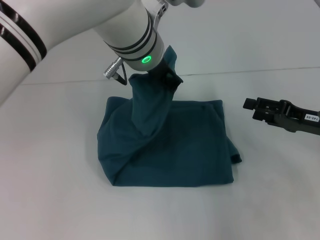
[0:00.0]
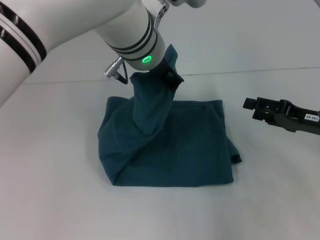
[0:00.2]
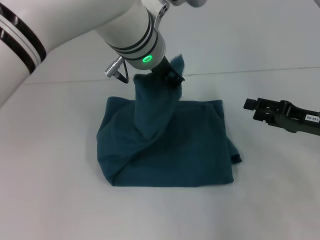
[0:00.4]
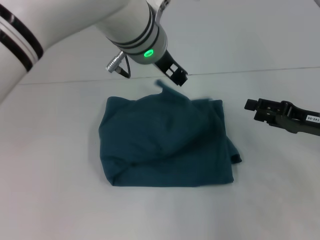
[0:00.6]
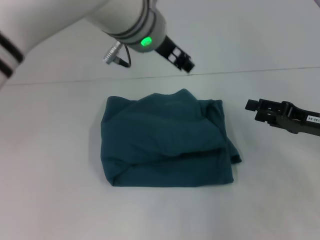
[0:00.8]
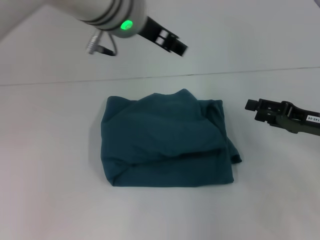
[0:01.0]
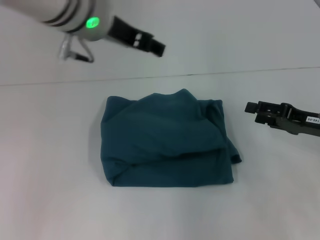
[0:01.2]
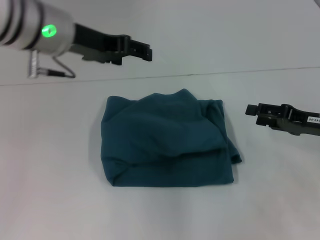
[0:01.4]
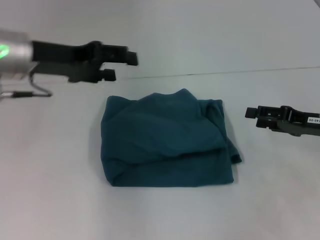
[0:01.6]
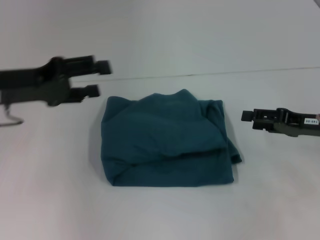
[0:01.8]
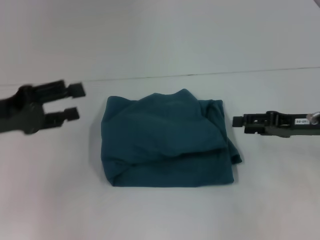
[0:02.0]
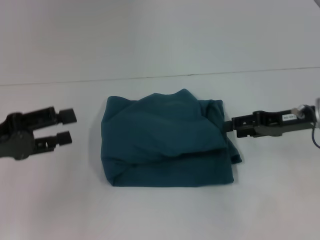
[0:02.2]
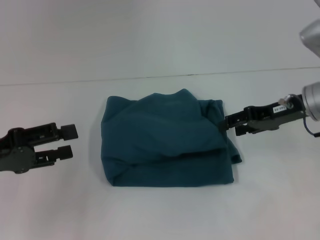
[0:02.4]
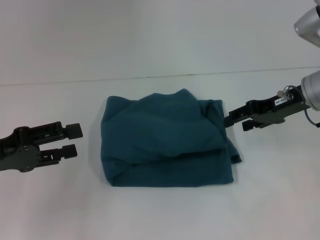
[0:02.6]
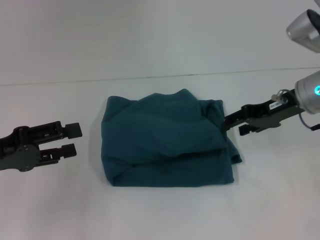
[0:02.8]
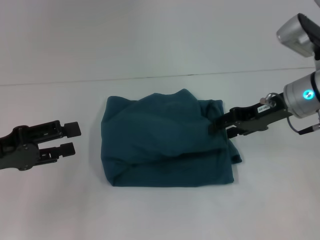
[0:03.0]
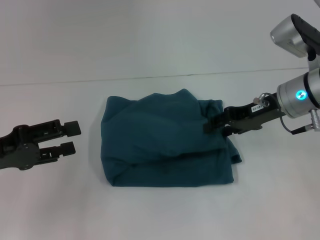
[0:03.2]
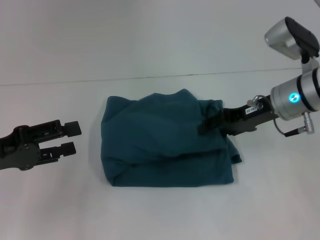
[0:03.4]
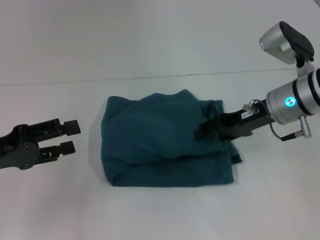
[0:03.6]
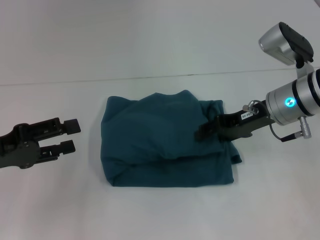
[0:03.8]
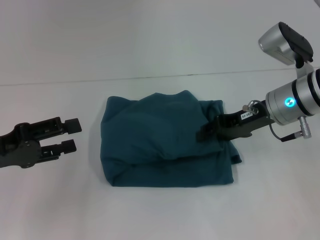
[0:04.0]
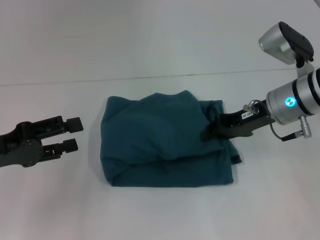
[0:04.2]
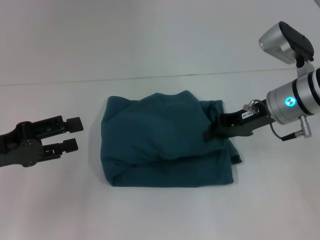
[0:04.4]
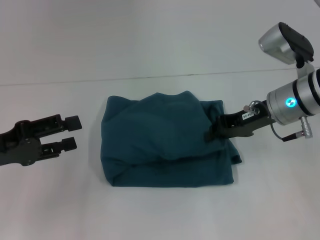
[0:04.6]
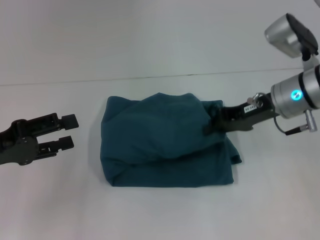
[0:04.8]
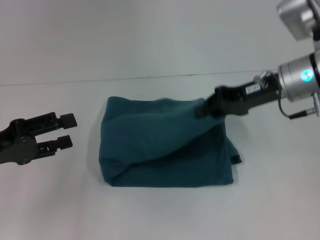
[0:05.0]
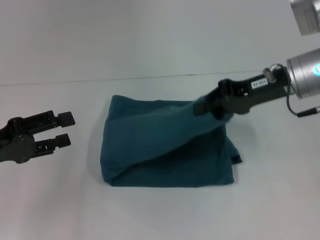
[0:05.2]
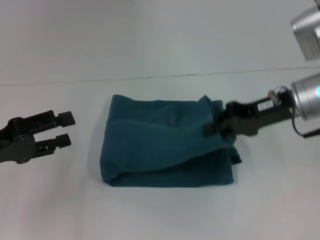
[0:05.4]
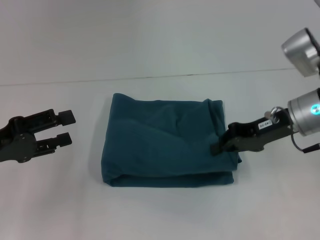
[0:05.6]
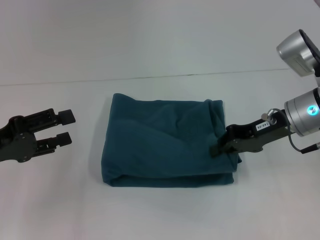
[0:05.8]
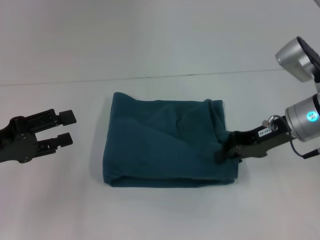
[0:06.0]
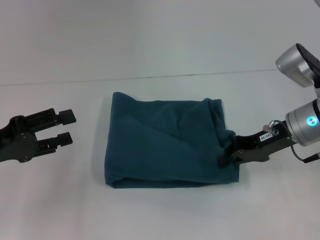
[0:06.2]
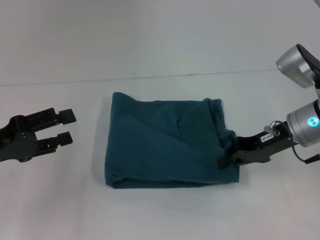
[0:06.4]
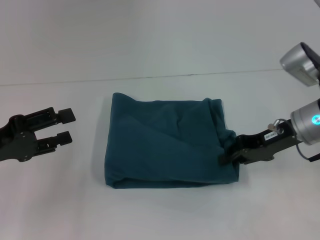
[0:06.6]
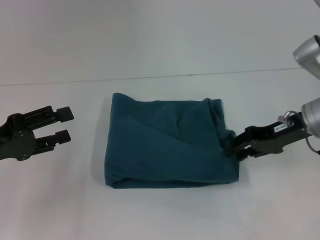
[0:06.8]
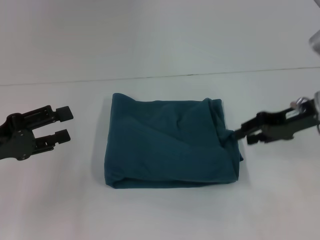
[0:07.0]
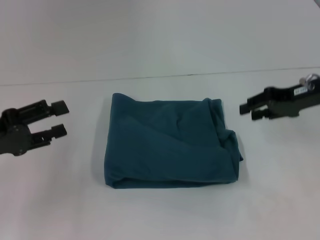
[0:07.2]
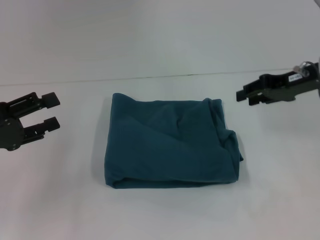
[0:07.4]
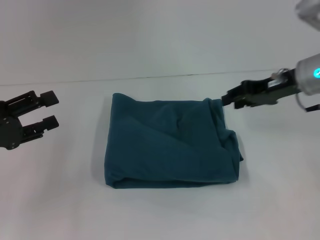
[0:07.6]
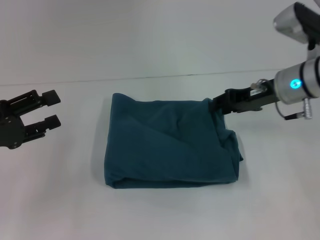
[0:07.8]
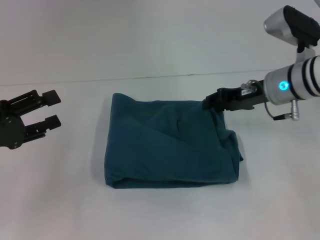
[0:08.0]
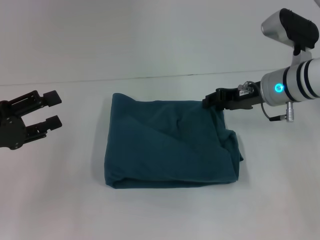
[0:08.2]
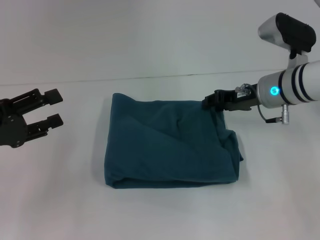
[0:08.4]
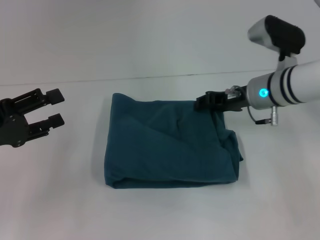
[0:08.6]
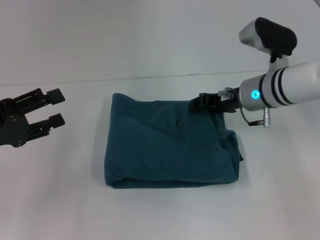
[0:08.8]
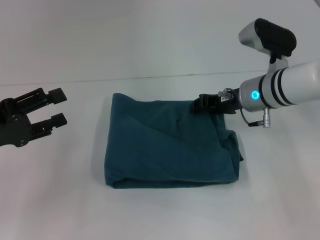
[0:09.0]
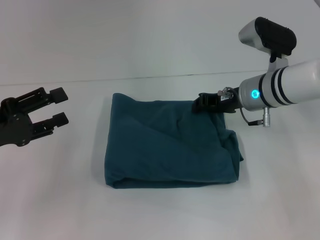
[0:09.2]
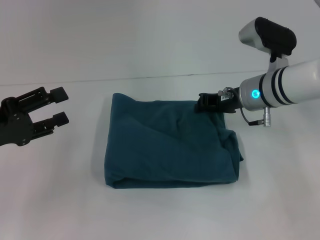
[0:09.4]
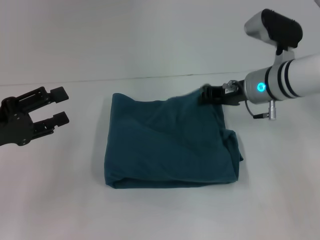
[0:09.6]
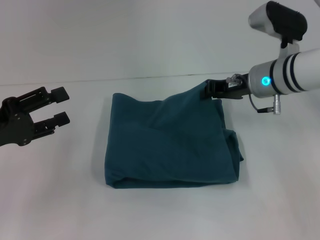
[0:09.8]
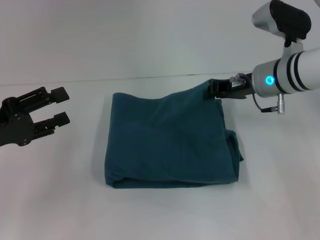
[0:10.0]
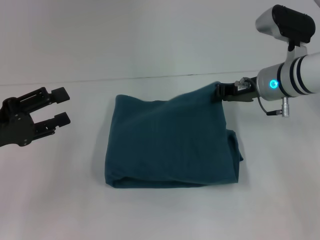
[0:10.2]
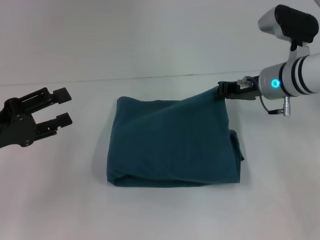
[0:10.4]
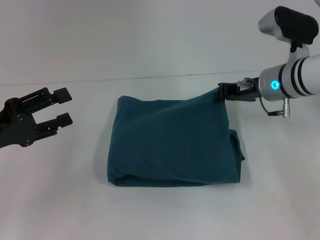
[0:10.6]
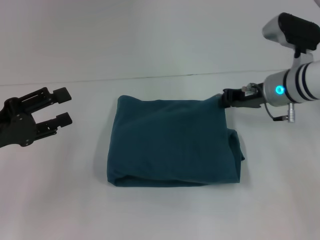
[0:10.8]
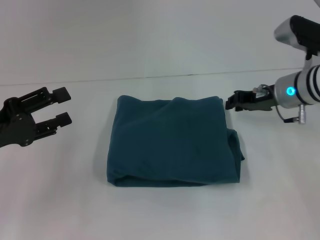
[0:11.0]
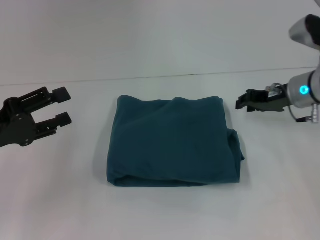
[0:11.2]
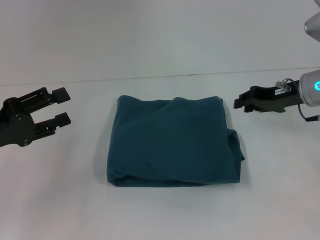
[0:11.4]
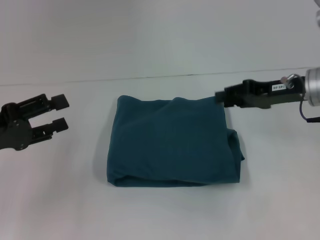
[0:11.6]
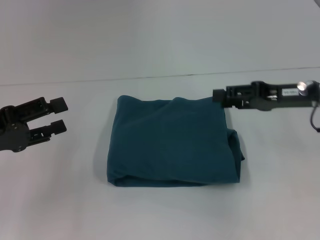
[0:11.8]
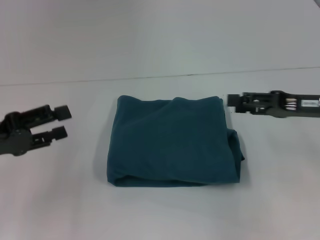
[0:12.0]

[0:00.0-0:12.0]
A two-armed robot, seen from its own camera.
0:00.0 to 0:01.6: The left gripper goes some 20 cm to the left, and opens.
0:01.6 to 0:03.0: The left gripper is displaced backward, to the left and downward by about 15 cm. Meanwhile the right gripper shifts approximately 10 cm to the left and forward.
0:03.0 to 0:04.4: The right gripper closes.
0:04.4 to 0:06.0: The grippers stay close to where they were, moving slightly.
0:06.0 to 0:07.6: The right gripper shifts by approximately 5 cm, and opens up.
0:07.6 to 0:09.0: The right gripper heads to the left and downward, covering about 10 cm.
0:09.0 to 0:10.4: The right gripper closes its fingers.
0:10.4 to 0:12.0: The right gripper heads backward and to the right, covering about 15 cm, and opens up.

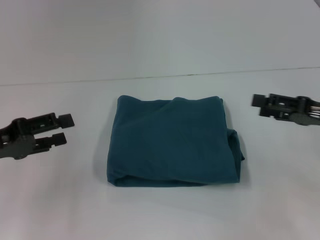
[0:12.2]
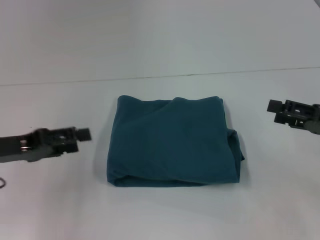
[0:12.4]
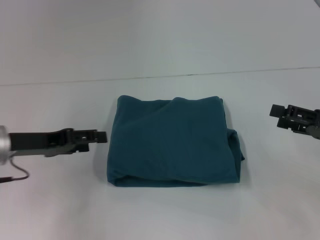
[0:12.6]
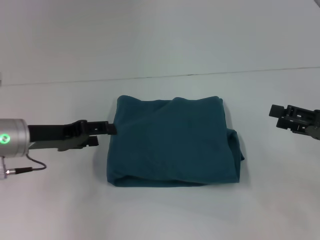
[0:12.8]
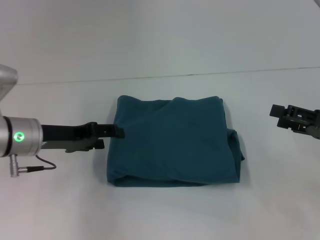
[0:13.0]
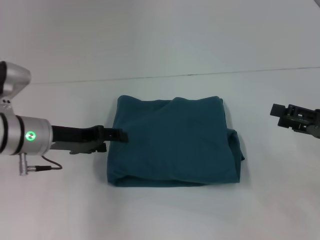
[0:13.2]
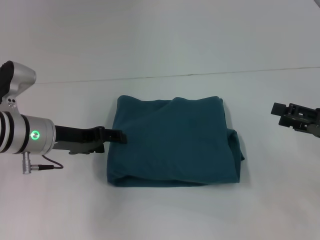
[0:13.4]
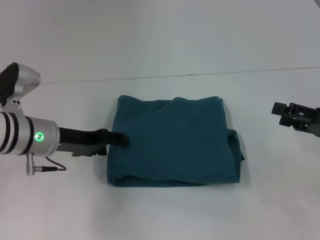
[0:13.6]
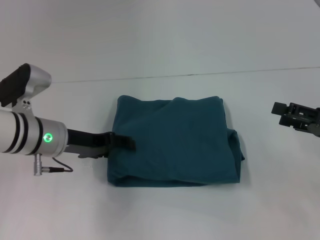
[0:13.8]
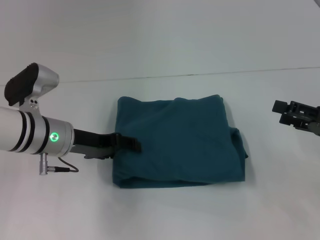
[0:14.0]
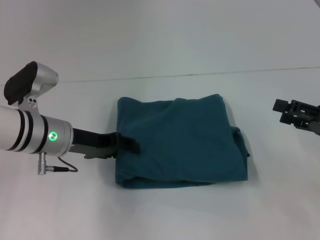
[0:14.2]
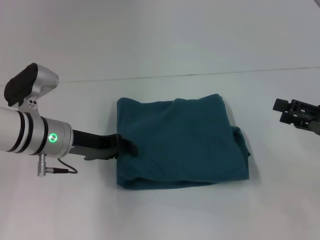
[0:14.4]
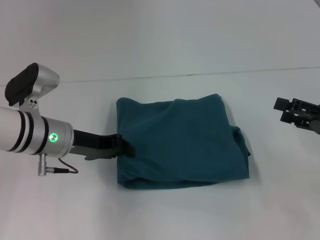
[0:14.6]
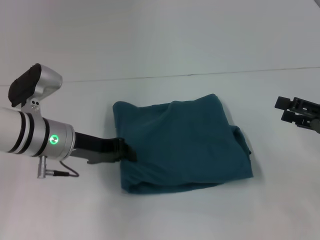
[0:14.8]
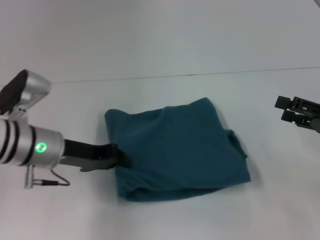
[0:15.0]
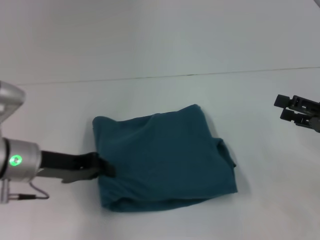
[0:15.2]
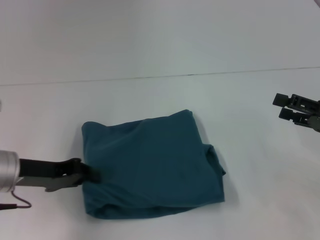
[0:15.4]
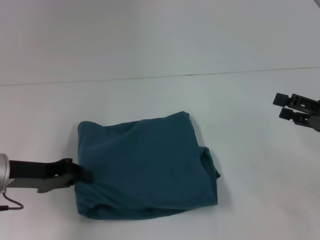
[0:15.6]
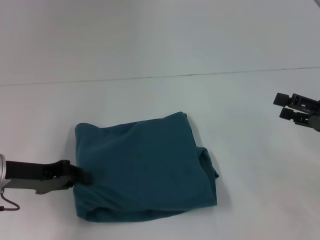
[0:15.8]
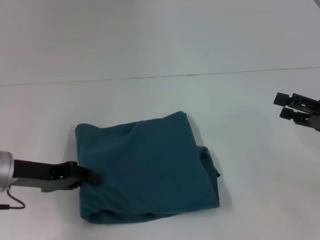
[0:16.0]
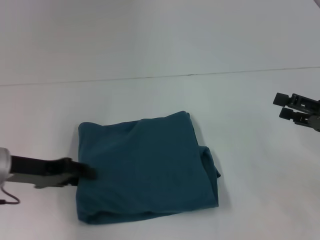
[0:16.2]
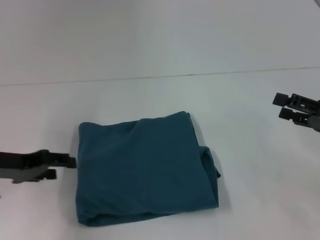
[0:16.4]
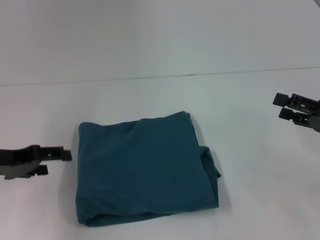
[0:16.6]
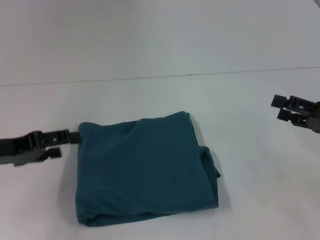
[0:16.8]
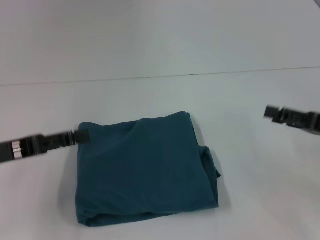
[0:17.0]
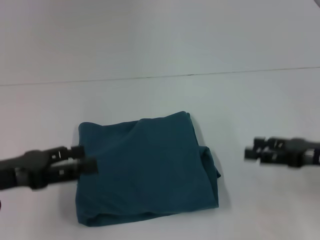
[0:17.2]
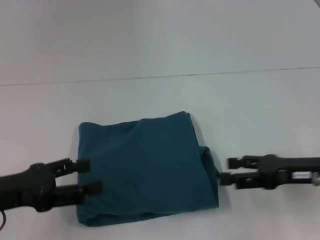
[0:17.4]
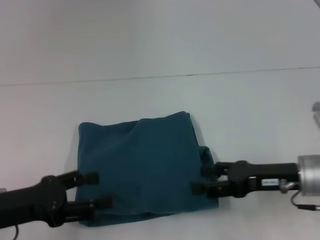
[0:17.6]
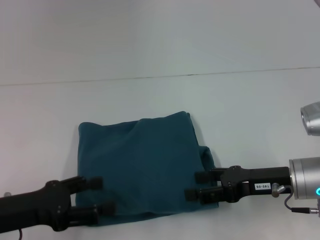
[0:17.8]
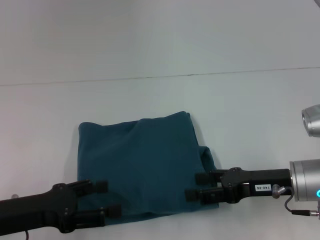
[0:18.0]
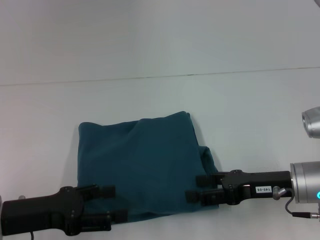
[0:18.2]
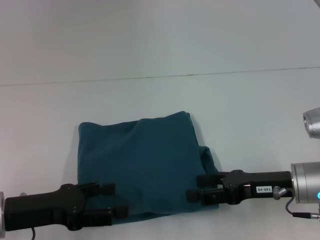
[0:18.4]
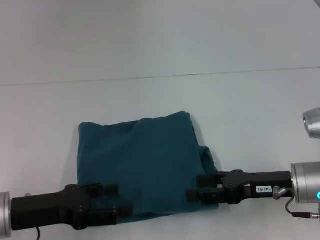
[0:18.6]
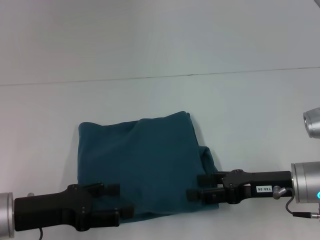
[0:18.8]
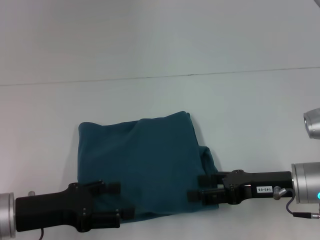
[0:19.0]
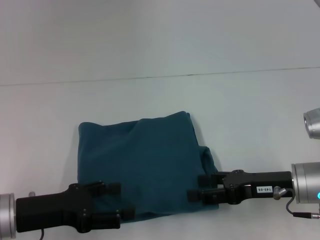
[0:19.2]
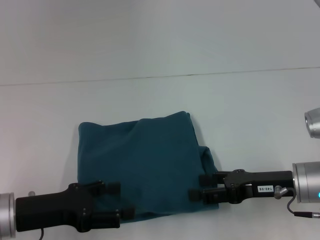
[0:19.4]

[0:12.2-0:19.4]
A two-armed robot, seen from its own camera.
0:12.2 to 0:13.6: The left gripper goes roughly 15 cm to the right and forward.
0:13.6 to 0:15.0: The left gripper closes its fingers.
0:15.0 to 0:16.6: The left gripper heads to the left, covering some 10 cm, and opens up.
0:16.6 to 0:18.0: The left gripper goes some 5 cm backward, while the right gripper shifts about 10 cm to the left.
0:18.0 to 0:19.4: There are only small adjustments of the grippers.

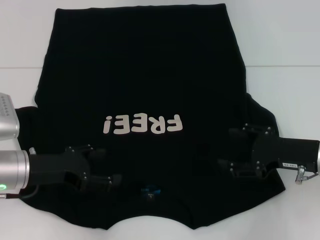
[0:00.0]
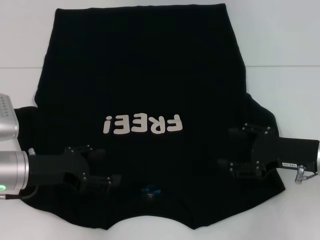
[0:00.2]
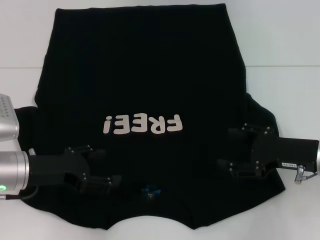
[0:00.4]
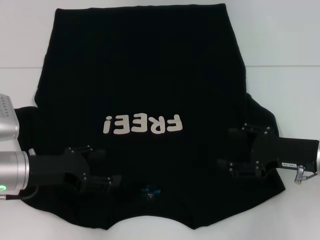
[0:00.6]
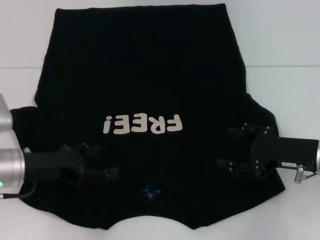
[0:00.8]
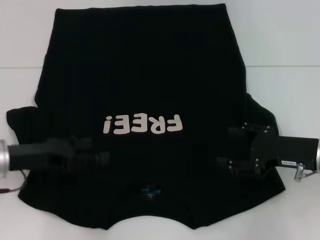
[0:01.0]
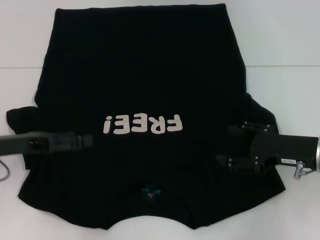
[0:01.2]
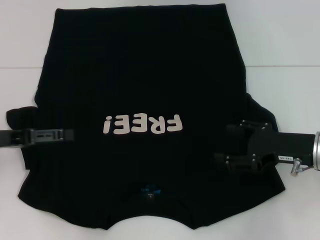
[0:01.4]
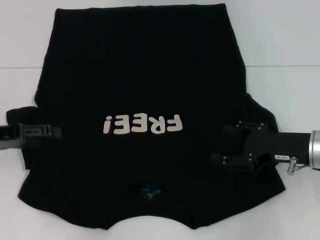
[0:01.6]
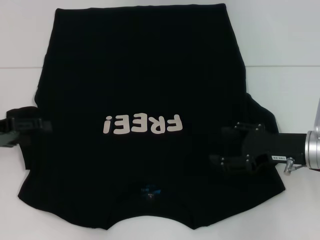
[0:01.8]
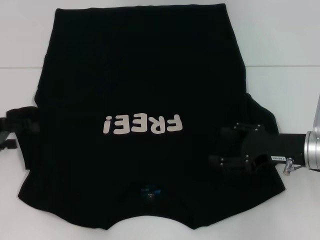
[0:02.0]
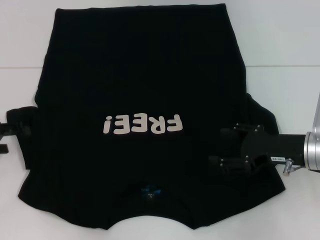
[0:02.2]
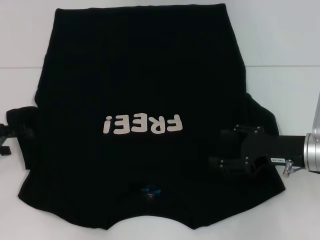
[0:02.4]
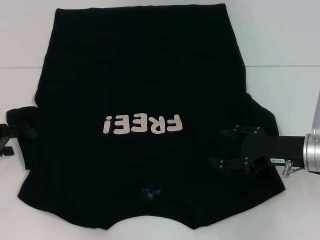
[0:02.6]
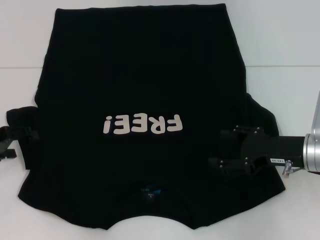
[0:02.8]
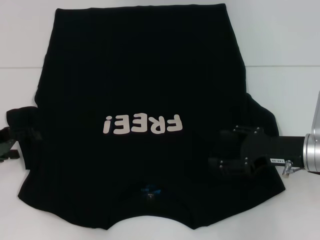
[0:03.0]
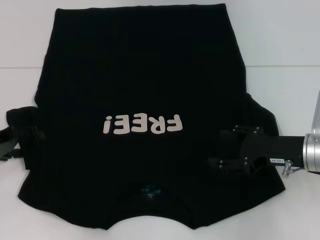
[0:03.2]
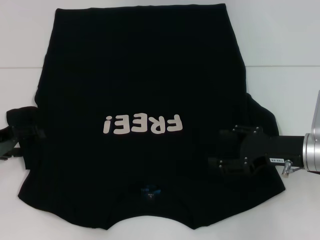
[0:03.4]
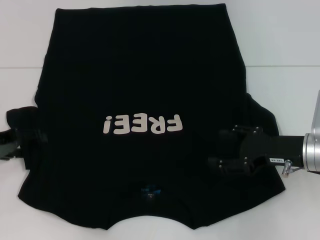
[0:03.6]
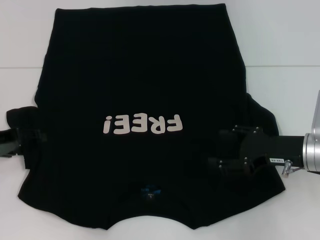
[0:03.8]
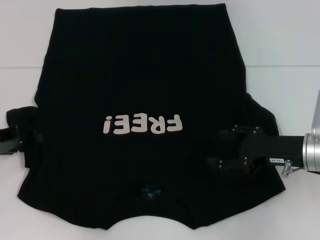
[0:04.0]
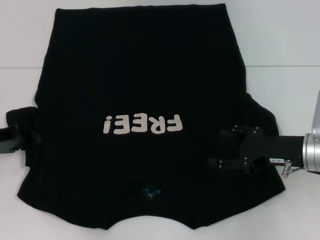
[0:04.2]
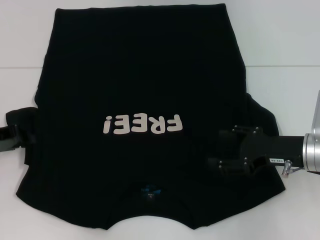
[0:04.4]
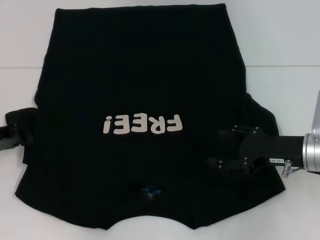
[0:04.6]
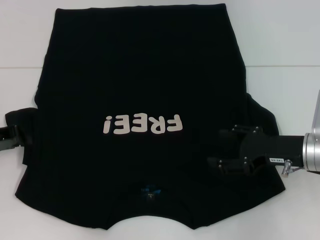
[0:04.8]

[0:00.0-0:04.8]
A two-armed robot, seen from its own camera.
0:00.0 to 0:01.6: The left gripper shifts approximately 10 cm to the left and upward.
0:03.2 to 0:04.8: The left gripper closes.
